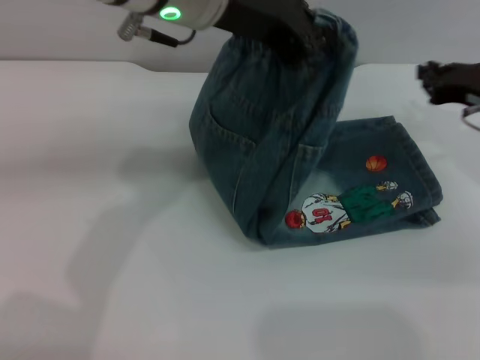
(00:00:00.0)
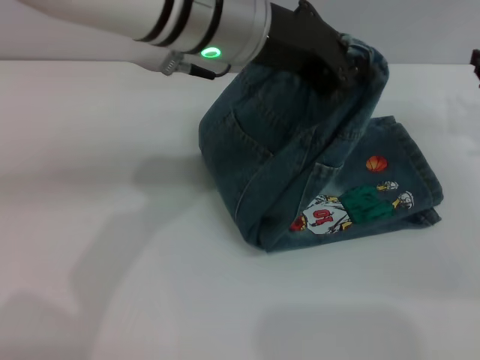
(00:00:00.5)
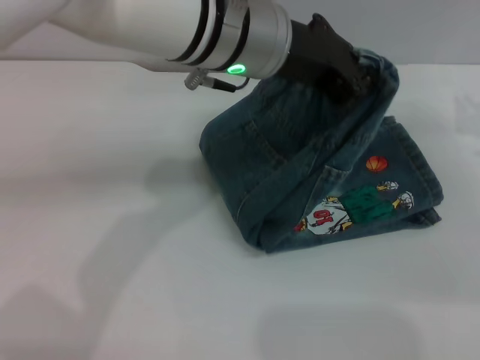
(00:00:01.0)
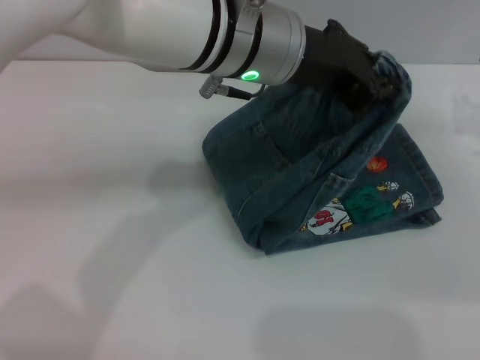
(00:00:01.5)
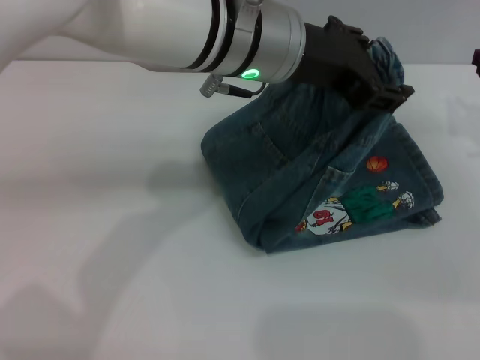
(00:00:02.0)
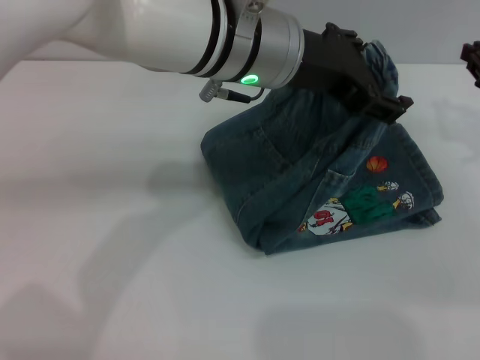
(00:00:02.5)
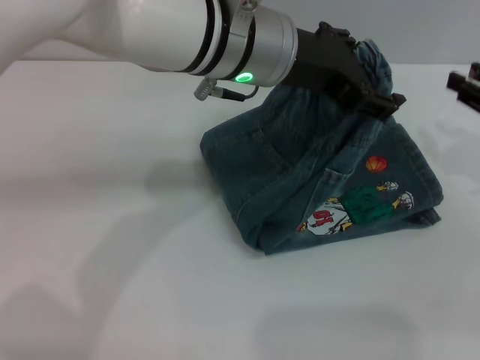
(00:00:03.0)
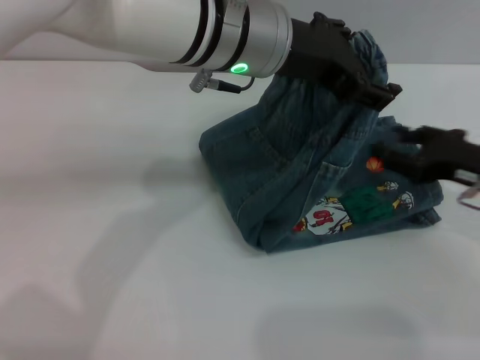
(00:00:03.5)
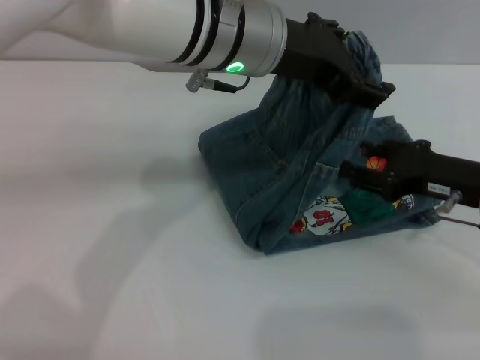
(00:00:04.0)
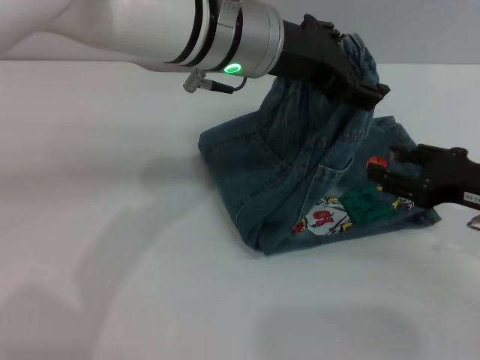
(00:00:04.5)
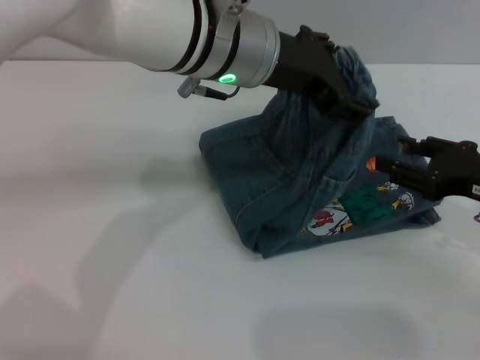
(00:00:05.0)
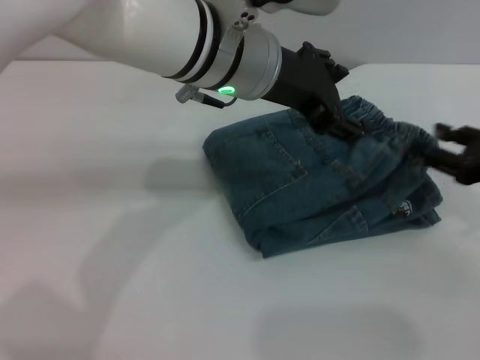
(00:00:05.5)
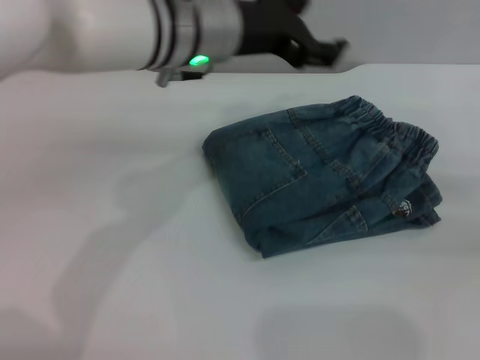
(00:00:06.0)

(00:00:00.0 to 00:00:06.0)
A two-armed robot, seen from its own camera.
Step, 00:00:00.0 - 00:00:05.5: Fold the pants from left to right with the left gripper.
00:00:00.0 - 00:00:02.0: The left gripper ends up roughly 5 cm from where it was.
00:00:02.0 - 00:00:04.0: The right gripper heads to the left and backward, covering about 10 cm, and opens its fingers; the left gripper opens.
00:00:04.0 - 00:00:06.0: The right gripper heads to the right, covering approximately 15 cm.
